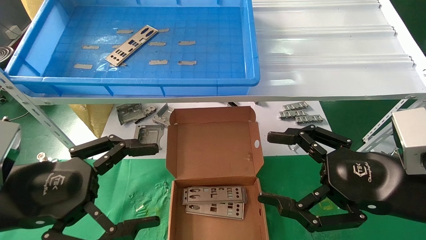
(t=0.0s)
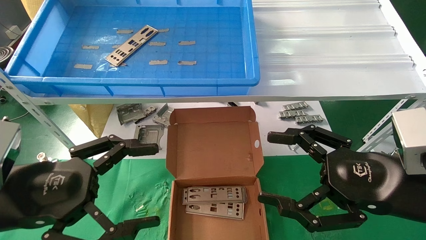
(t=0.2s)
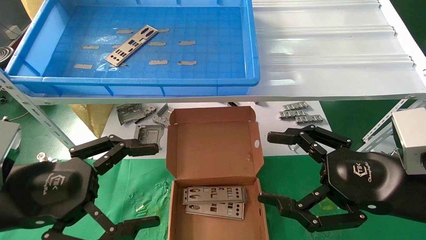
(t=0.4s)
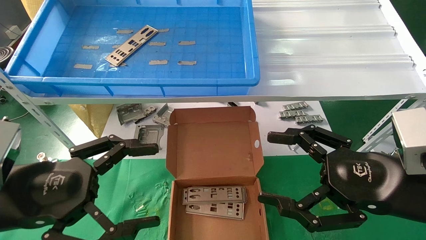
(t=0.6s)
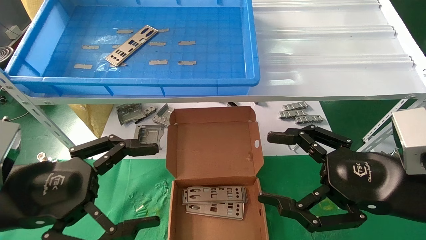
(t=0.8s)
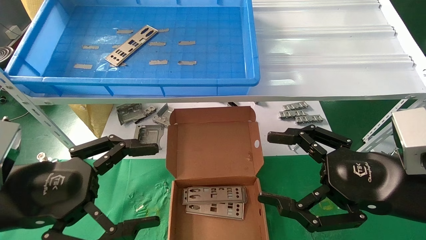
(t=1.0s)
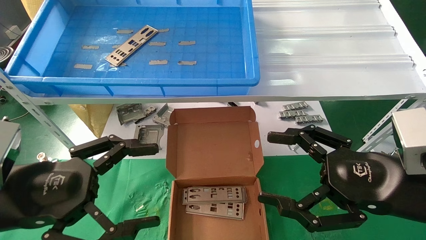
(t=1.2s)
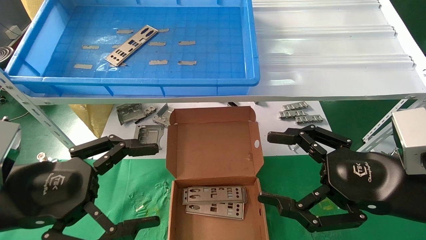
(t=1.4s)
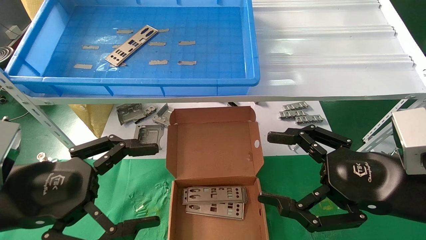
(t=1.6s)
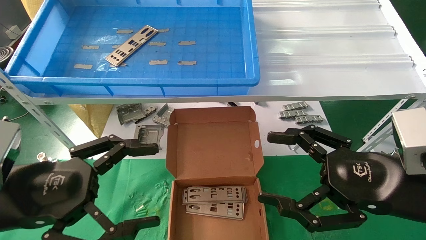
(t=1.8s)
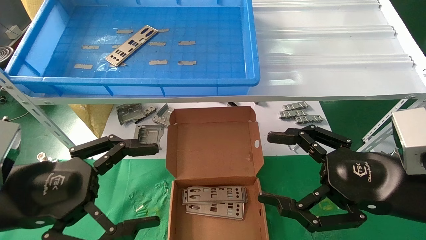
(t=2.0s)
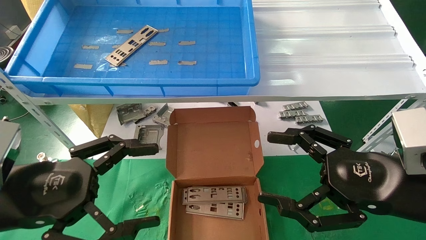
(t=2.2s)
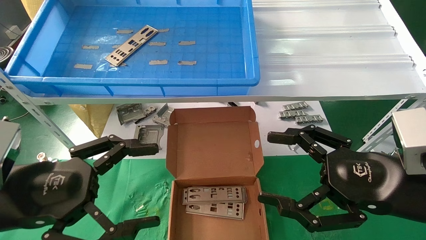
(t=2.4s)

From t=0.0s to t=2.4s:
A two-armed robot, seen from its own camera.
Task of the whole recording: pick up the parts on the tray and put them in the cardboard box.
From t=0.0s to t=2.4s: Neither gripper changes place.
